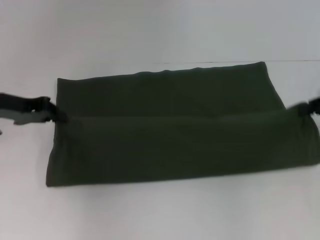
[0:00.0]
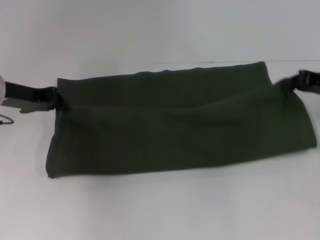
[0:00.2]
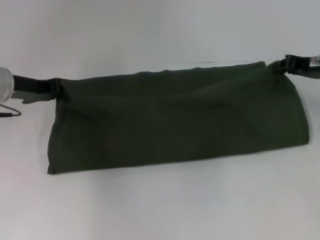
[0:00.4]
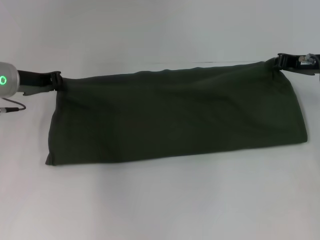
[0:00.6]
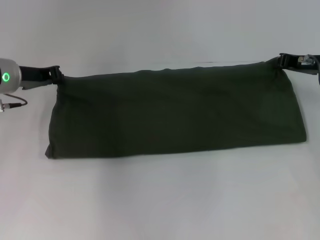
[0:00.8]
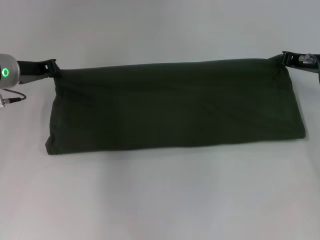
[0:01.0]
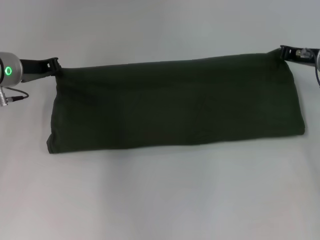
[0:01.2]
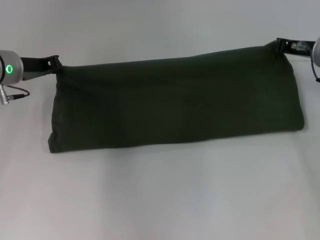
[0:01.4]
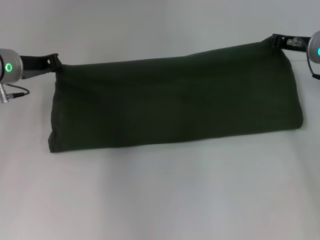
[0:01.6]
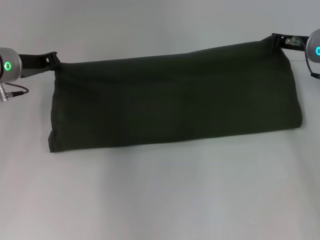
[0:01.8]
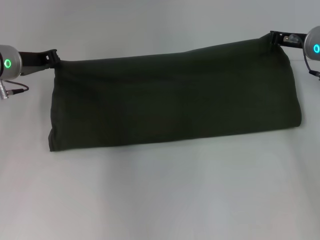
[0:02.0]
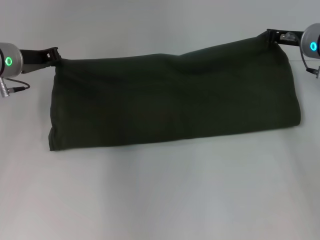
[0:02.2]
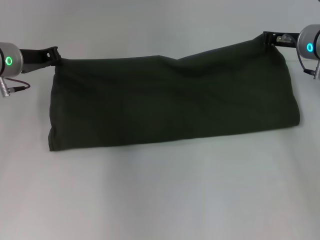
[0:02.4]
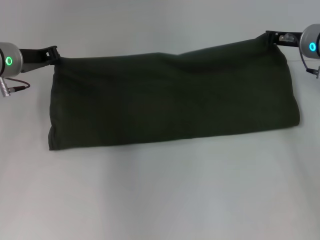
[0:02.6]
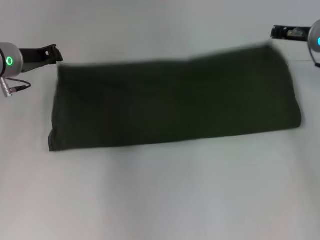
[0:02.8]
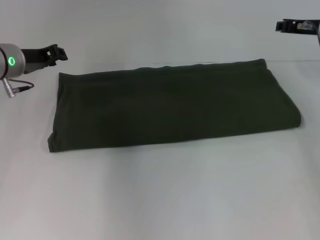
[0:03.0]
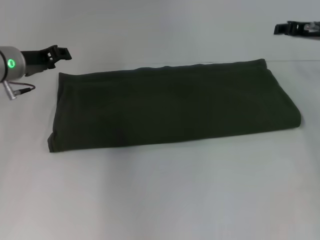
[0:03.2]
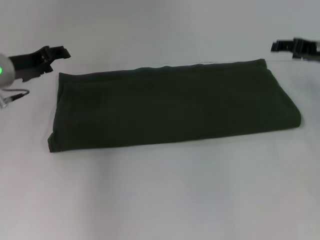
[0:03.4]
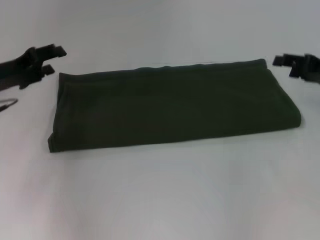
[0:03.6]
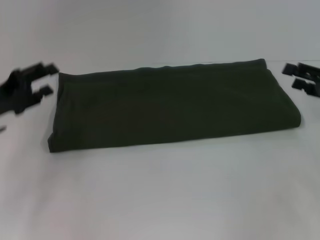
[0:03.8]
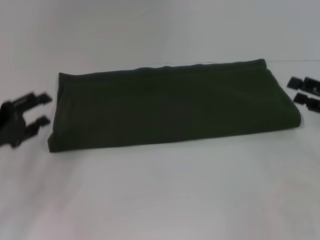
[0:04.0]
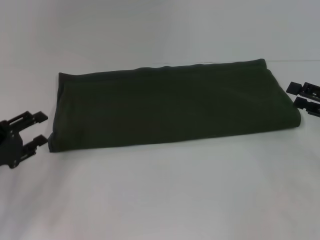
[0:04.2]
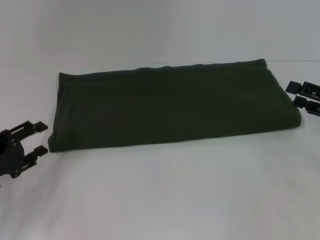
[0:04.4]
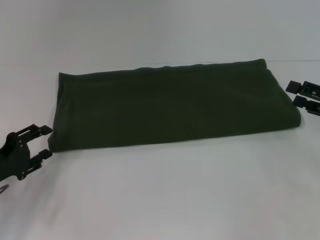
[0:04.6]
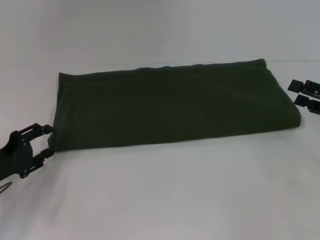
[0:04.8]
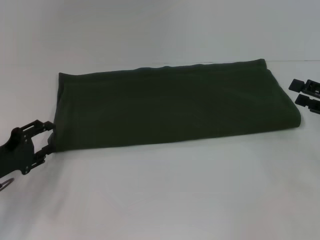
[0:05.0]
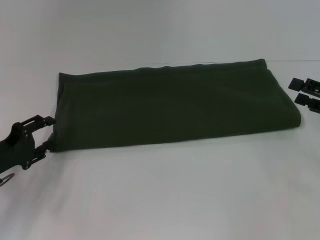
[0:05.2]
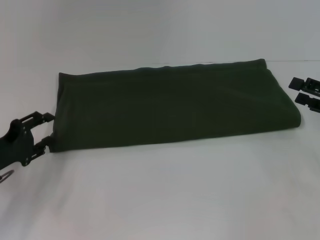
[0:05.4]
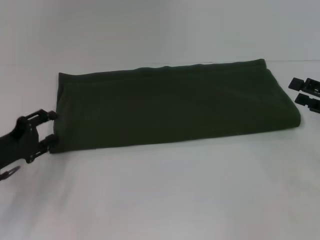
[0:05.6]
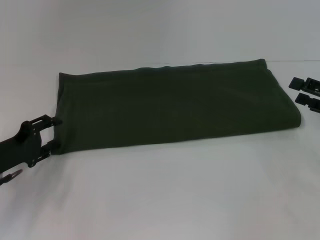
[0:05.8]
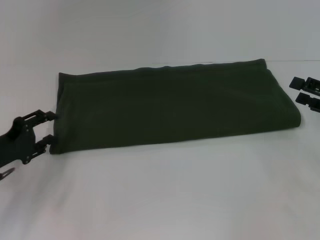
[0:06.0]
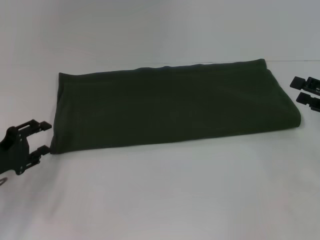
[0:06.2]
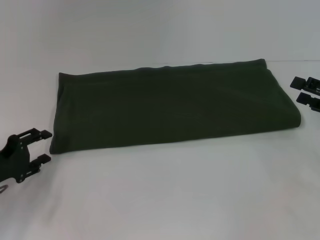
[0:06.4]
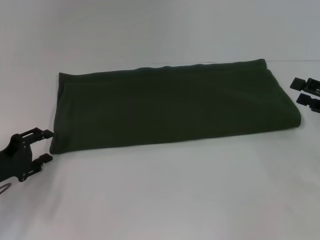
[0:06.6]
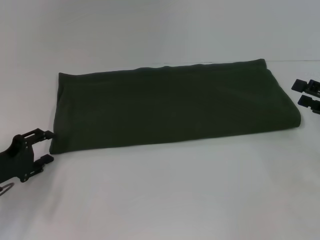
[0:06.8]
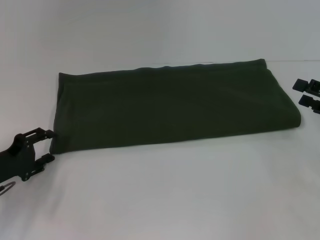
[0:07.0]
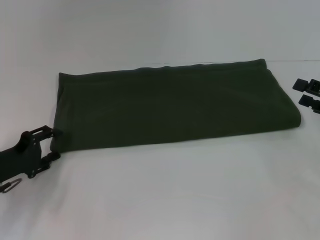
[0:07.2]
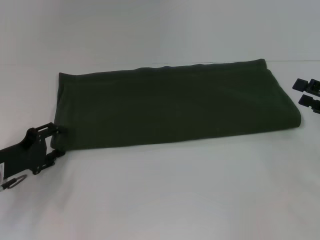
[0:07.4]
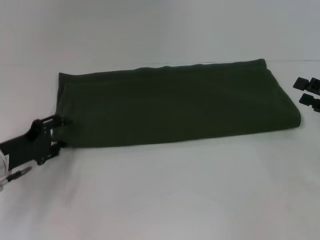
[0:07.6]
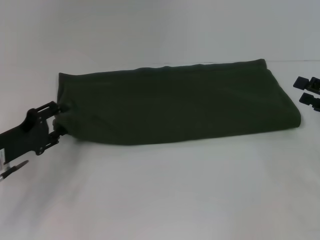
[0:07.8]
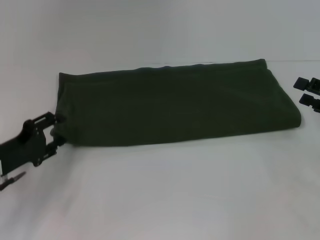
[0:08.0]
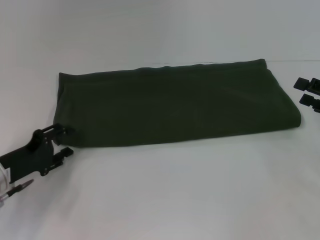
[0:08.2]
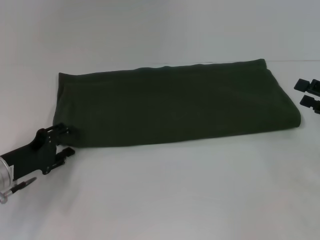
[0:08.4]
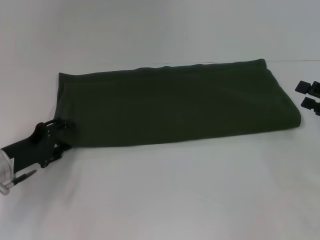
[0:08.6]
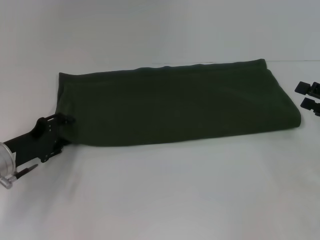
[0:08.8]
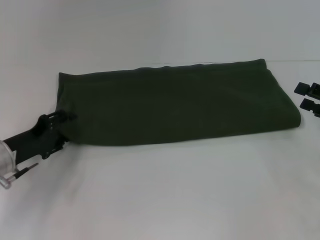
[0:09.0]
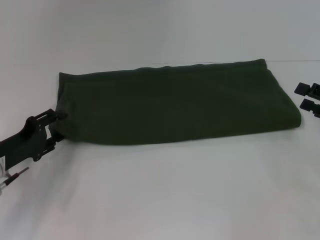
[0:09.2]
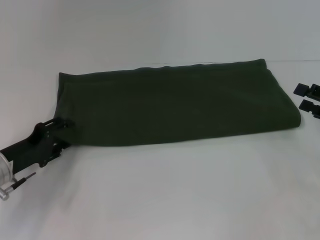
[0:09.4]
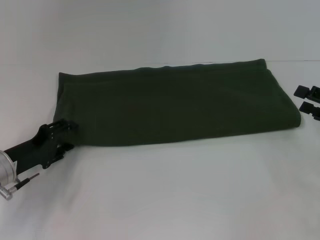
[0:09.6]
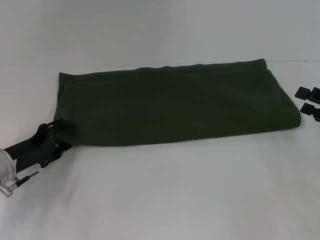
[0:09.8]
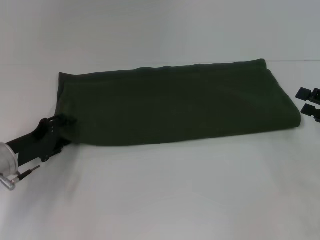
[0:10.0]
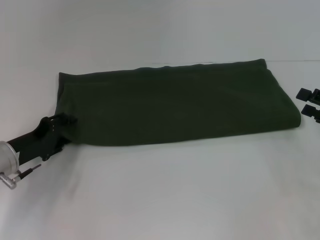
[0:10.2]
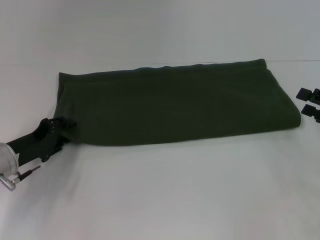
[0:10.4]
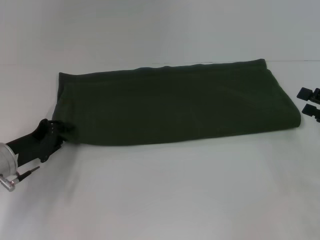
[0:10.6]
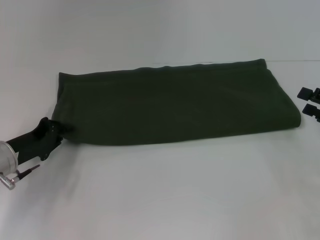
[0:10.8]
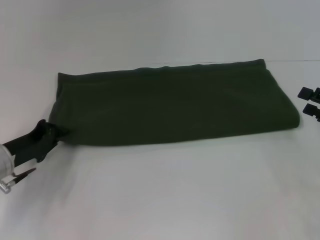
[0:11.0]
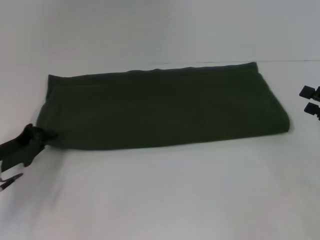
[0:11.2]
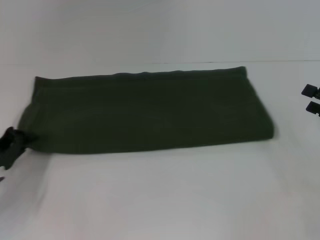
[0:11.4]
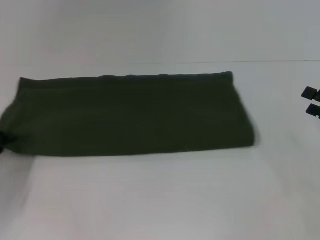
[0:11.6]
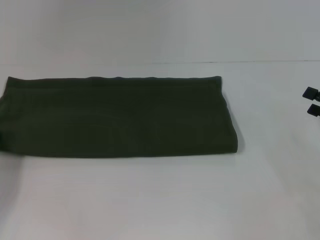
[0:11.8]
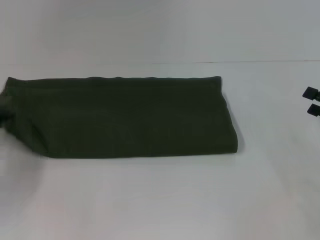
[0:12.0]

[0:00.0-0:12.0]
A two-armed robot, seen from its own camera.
Step, 0:00.0 to 0:02.8: Fold the clothes with your right hand.
0:00.0 to 0:01.6: The left gripper shifts about 5 cm forward, while the right gripper shifts roughly 15 cm forward and to the left.
0:01.6 to 0:03.0: The grippers move only a little.
0:03.0 to 0:04.4: The left gripper is displaced backward and downward by roughly 20 cm, and opens its fingers; the right gripper heads backward and to the right, covering roughly 20 cm, and opens its fingers.
0:04.4 to 0:07.6: The grippers make only small movements.
0:07.6 to 0:10.4: The grippers stay close to where they were, moving slightly.
0:10.4 to 0:12.0: The left gripper shifts about 10 cm to the left, and closes up.

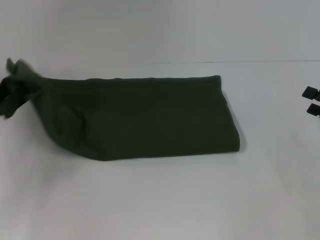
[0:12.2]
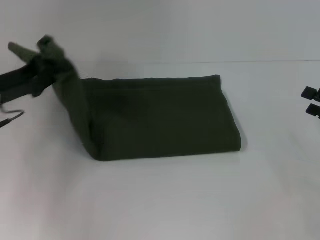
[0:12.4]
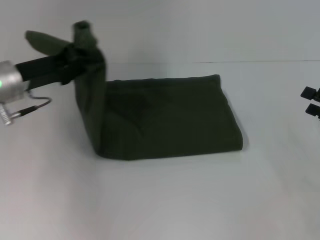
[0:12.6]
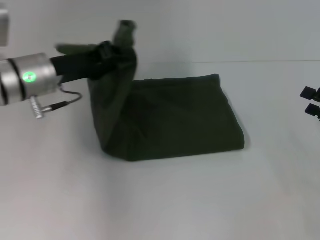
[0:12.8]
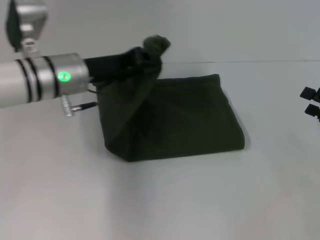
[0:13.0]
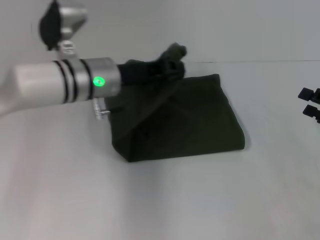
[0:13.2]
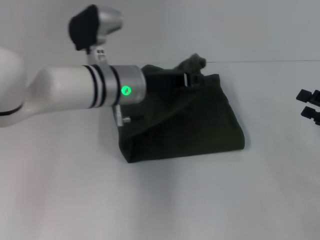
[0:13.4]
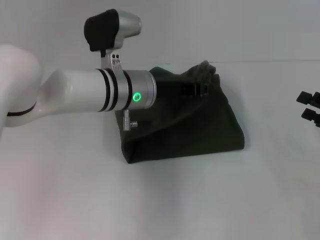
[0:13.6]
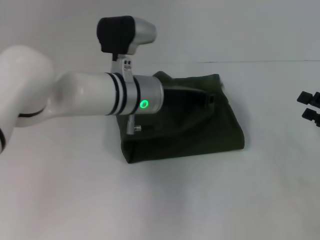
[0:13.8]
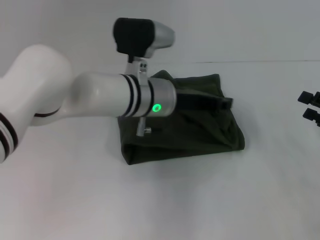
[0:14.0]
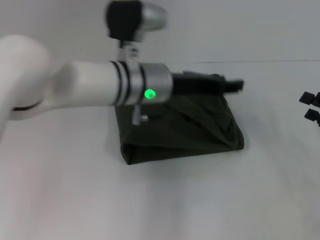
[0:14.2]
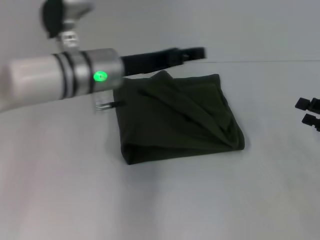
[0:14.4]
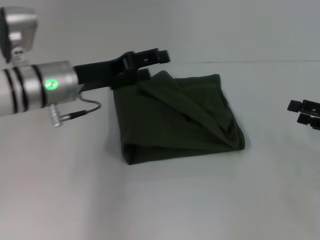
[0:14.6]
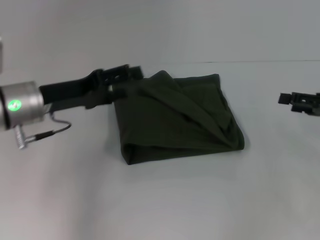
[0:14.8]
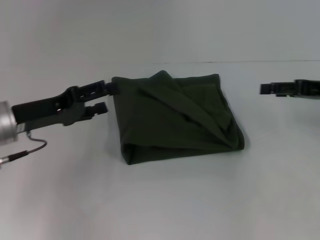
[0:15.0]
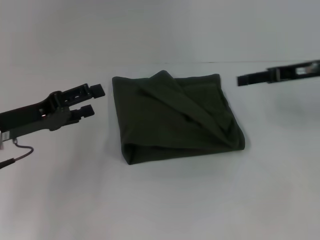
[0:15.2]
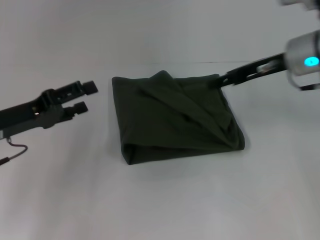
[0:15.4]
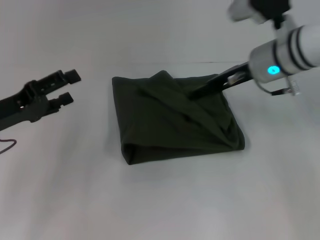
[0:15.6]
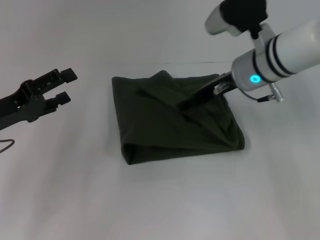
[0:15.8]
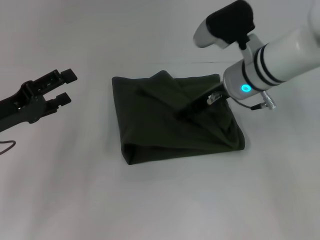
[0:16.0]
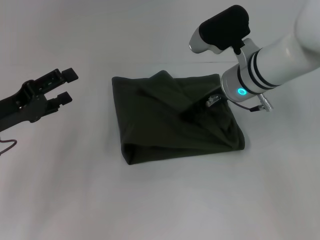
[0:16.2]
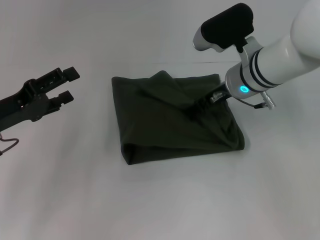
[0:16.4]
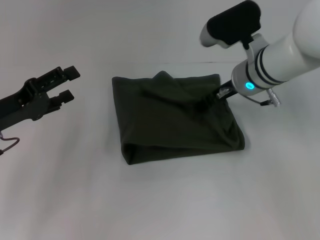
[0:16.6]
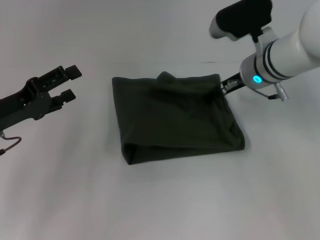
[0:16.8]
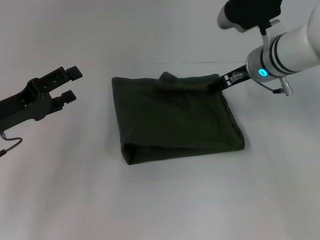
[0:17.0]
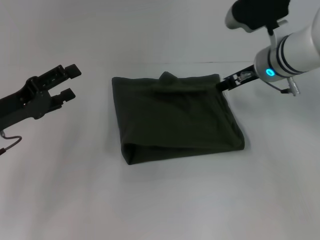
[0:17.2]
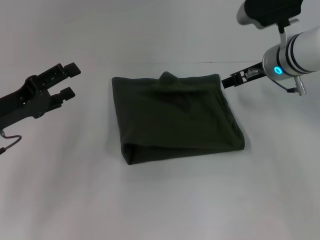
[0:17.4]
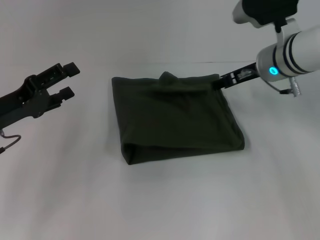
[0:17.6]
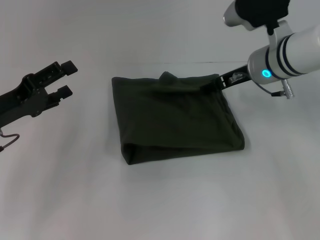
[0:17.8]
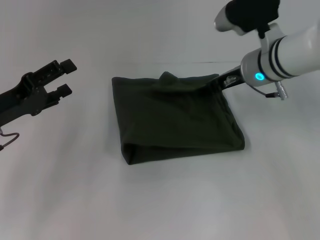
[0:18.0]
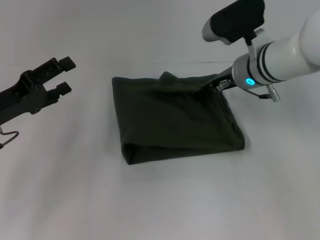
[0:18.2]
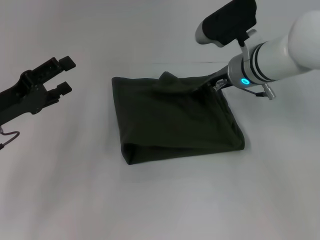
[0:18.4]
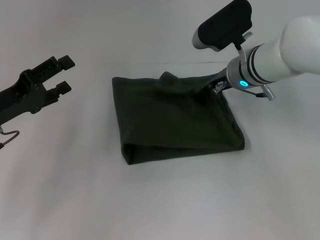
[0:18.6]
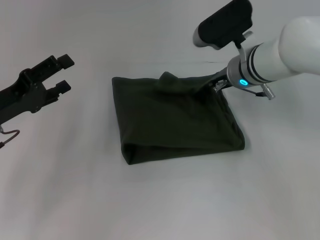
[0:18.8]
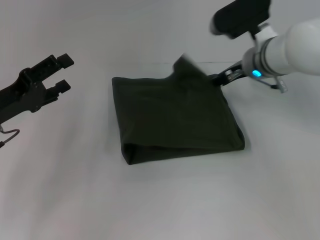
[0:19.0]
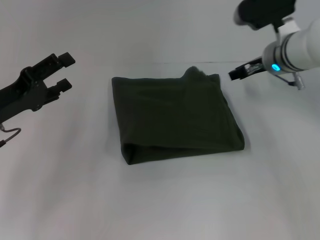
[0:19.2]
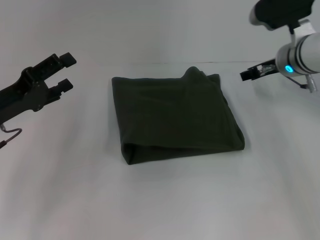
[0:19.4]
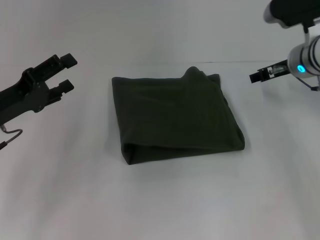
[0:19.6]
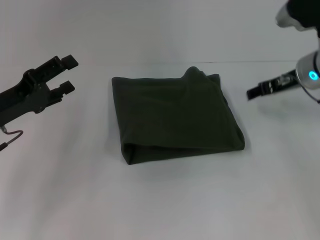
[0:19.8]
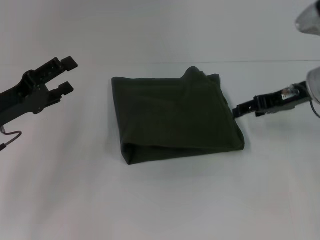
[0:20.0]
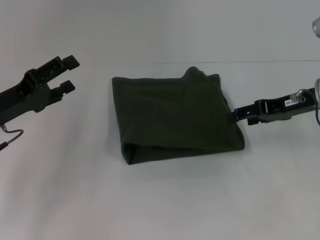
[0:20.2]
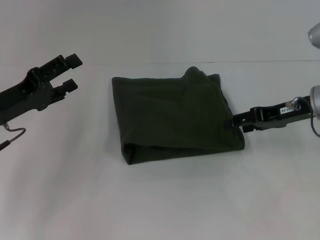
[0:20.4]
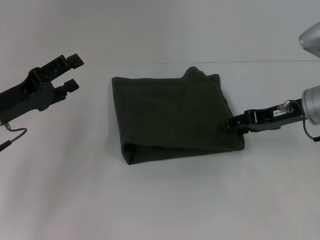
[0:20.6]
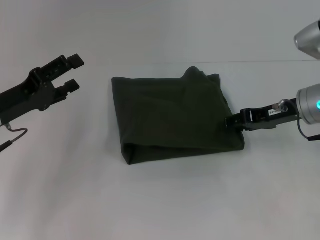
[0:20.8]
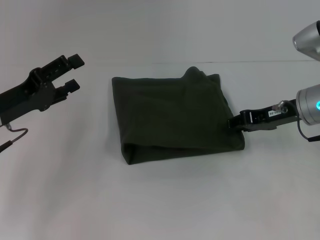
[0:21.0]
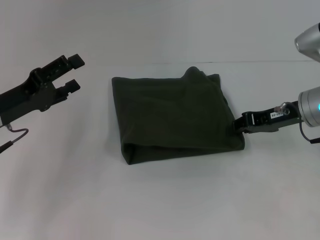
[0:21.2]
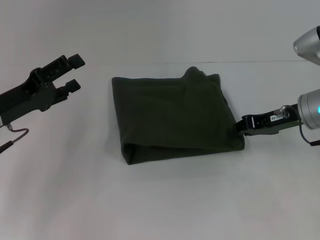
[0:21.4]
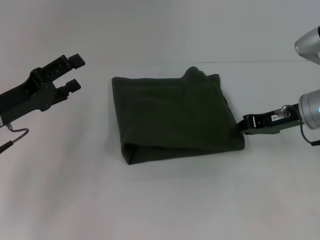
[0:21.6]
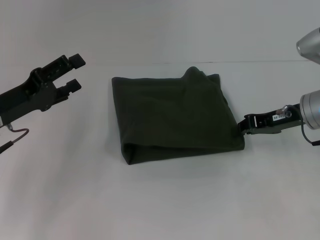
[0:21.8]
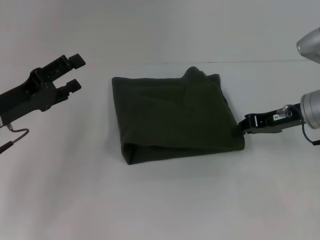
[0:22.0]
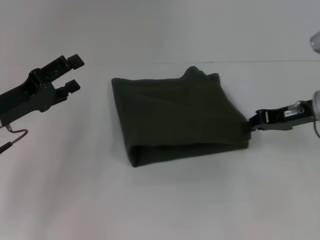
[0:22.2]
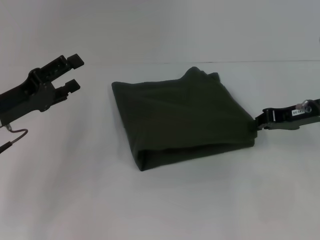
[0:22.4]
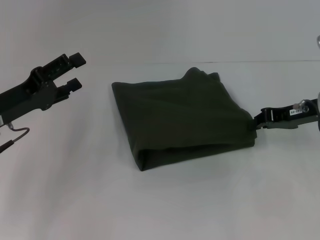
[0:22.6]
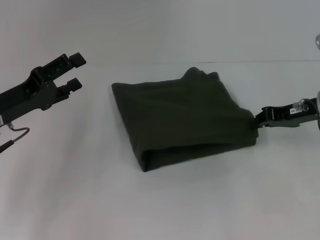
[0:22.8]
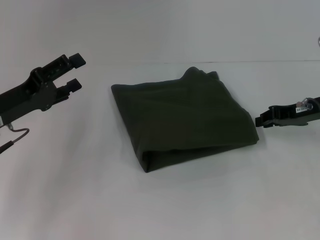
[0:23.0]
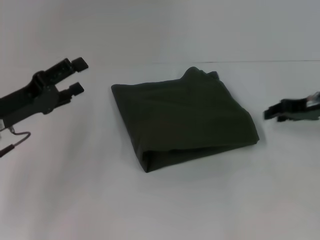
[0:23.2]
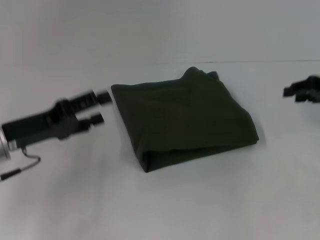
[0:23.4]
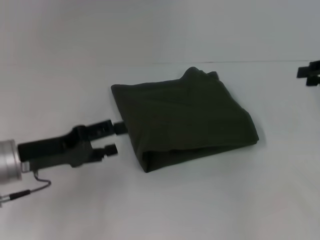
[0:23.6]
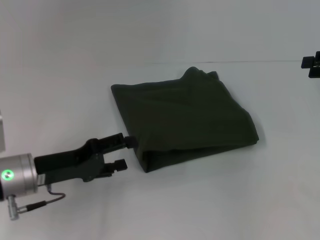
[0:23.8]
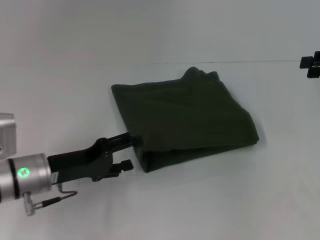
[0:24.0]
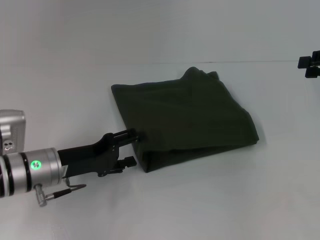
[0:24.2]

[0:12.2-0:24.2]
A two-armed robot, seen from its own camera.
0:12.2 to 0:13.8: The left gripper travels to the right by about 25 cm.
0:13.8 to 0:15.2: The right gripper goes roughly 15 cm forward, to the left and upward. The left gripper shifts roughly 20 cm to the left, and opens up.
0:15.2 to 0:16.6: The right gripper travels to the left by about 15 cm.
0:16.6 to 0:18.2: The grippers move only a little.
0:18.2 to 0:19.8: The right gripper shifts some 10 cm to the right.
0:19.8 to 0:21.2: The right gripper changes place by some 5 cm, and closes its fingers.
0:21.2 to 0:22.6: The right gripper closes its fingers.
0:22.6 to 0:24.2: The right gripper heads to the right and upward, covering some 10 cm, and opens; the left gripper goes some 10 cm to the right and downward.
